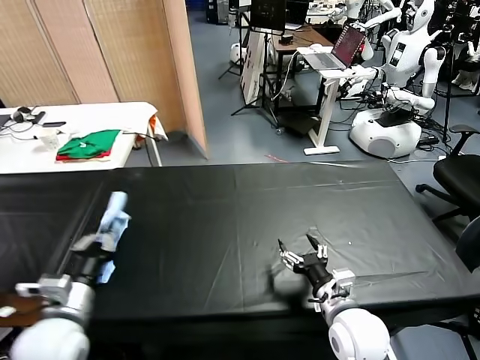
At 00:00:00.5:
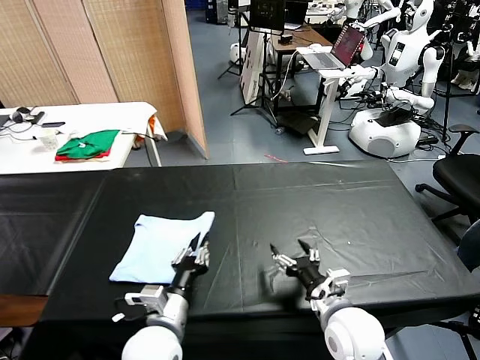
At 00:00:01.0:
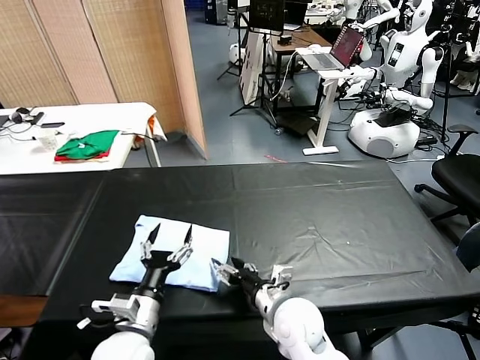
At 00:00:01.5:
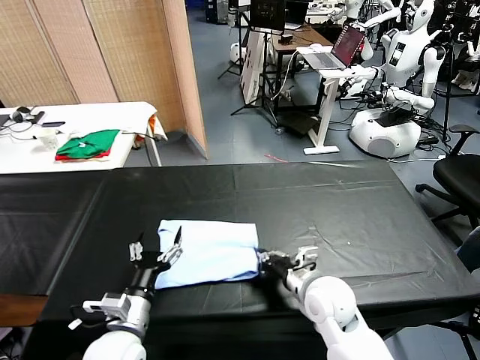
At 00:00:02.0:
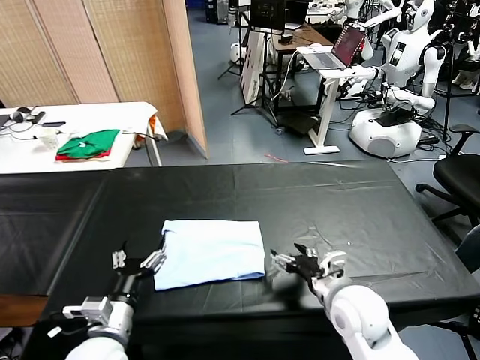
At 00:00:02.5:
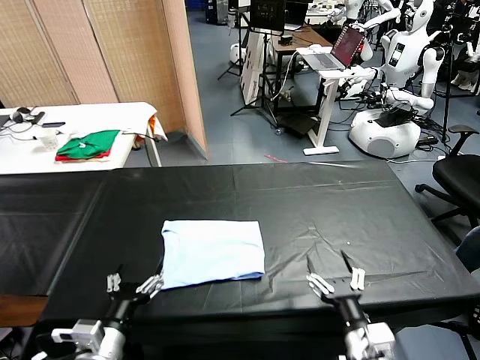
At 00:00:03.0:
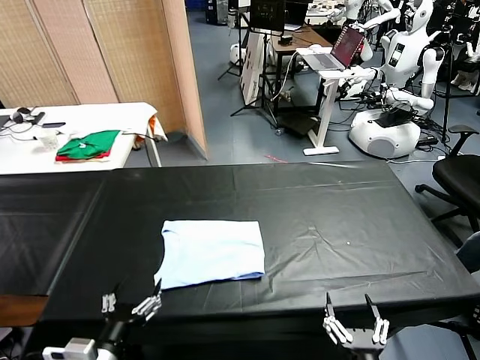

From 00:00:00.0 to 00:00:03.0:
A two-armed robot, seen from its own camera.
Task of the whole recording: fold and organize the clothes.
Step, from 00:00:01.0 to 00:00:01.5: Drag the clothes to the center of the table.
From 00:00:00.0 to 00:00:01.5: The left gripper travels to the left by about 5 cm, and opens its fingers. Meanwhile the right gripper goes about 5 cm forward, and closes up.
From 00:00:01.5 to 00:00:03.0: The left gripper heads backward, covering about 10 cm. The right gripper travels backward by about 25 cm, and opens its fingers.

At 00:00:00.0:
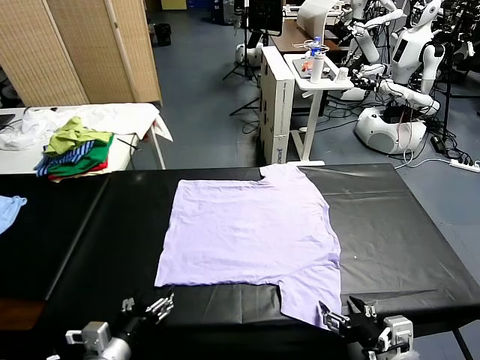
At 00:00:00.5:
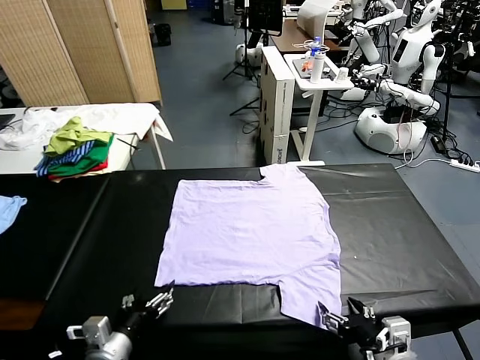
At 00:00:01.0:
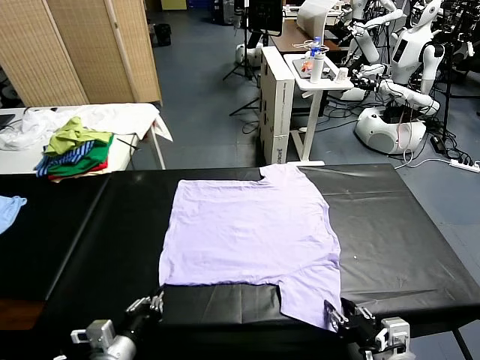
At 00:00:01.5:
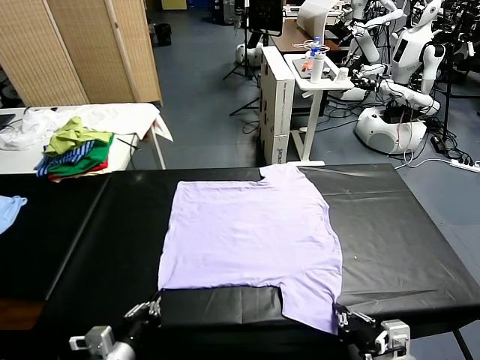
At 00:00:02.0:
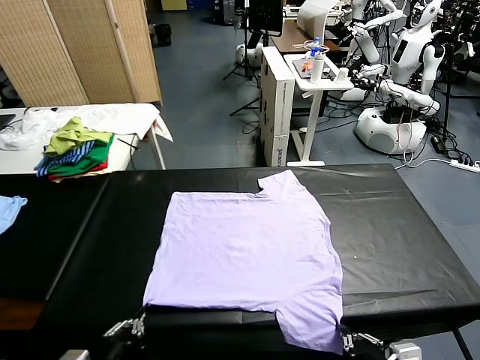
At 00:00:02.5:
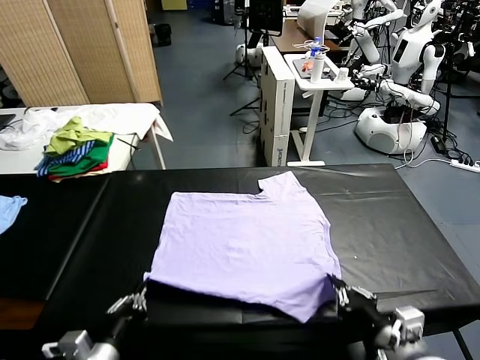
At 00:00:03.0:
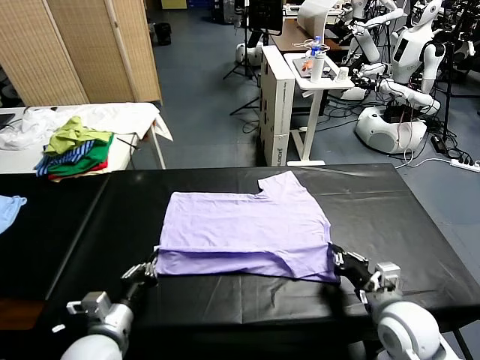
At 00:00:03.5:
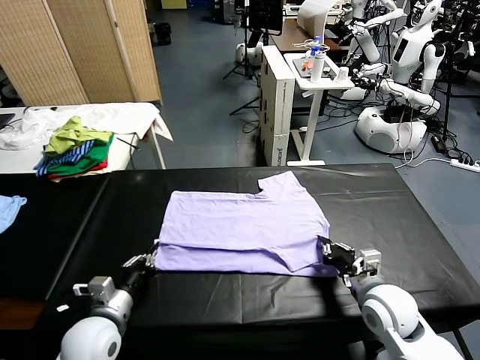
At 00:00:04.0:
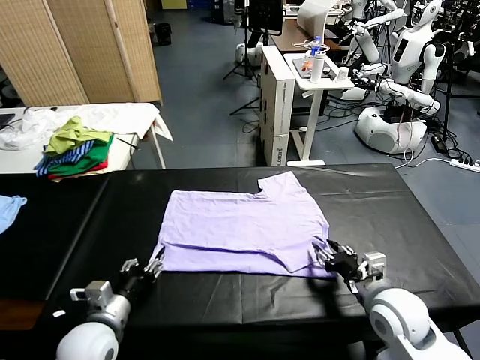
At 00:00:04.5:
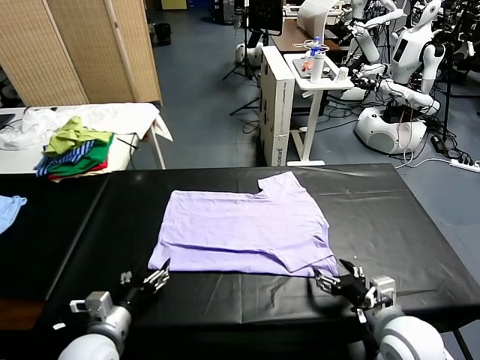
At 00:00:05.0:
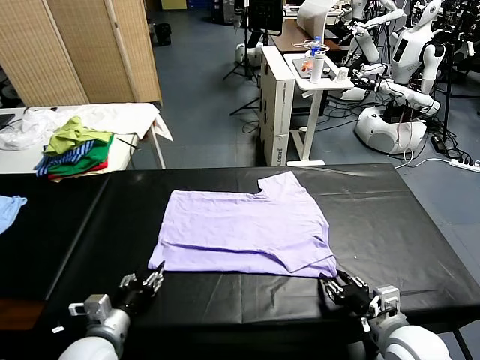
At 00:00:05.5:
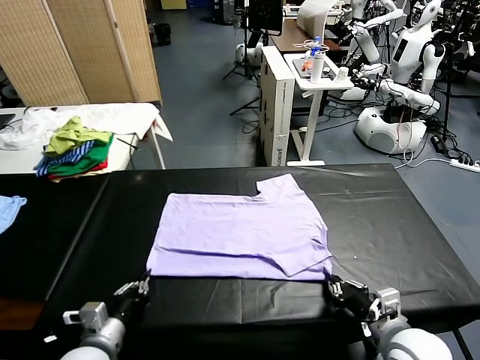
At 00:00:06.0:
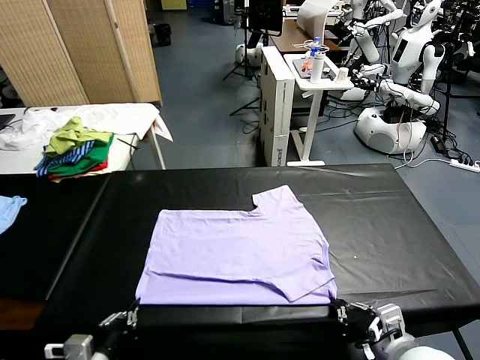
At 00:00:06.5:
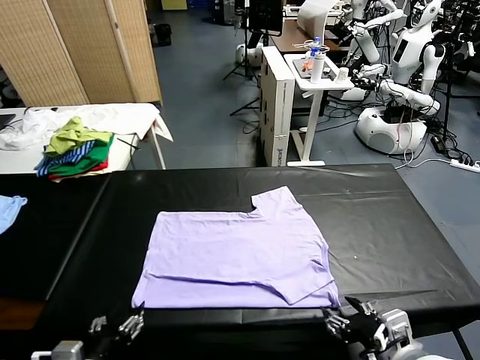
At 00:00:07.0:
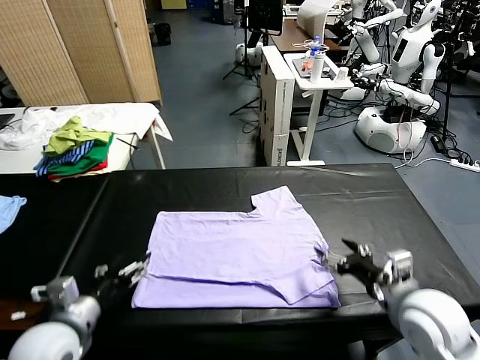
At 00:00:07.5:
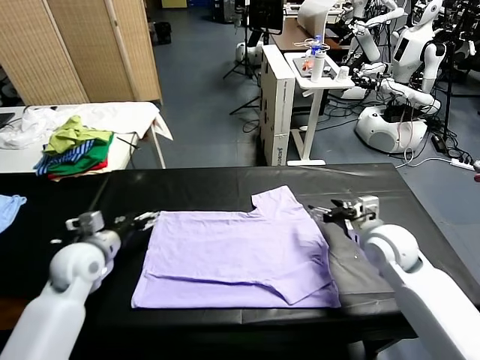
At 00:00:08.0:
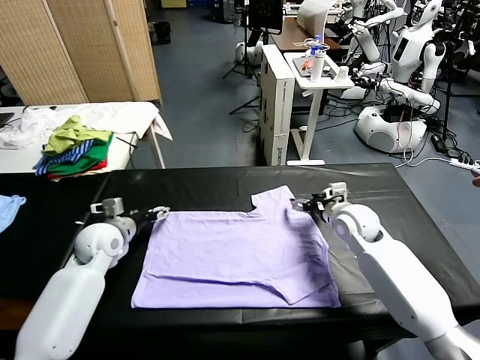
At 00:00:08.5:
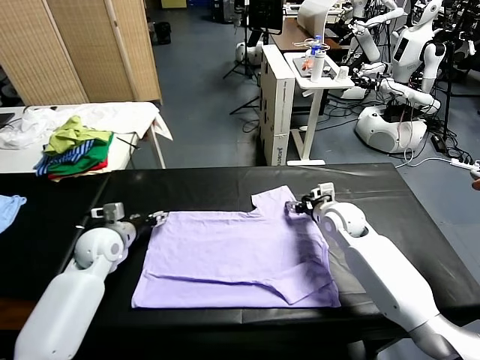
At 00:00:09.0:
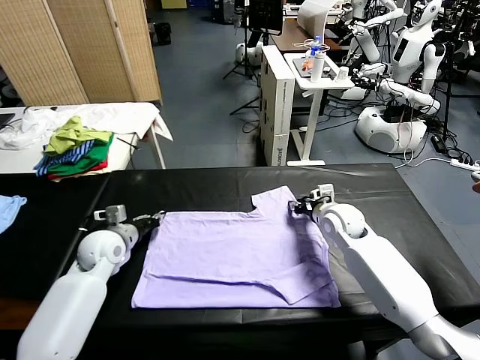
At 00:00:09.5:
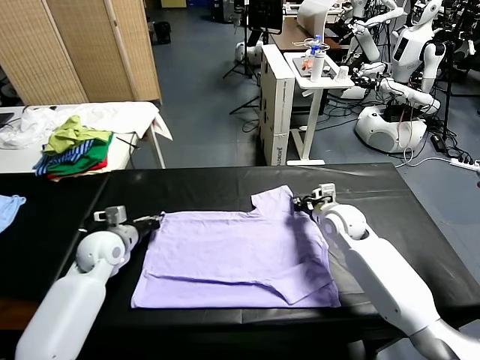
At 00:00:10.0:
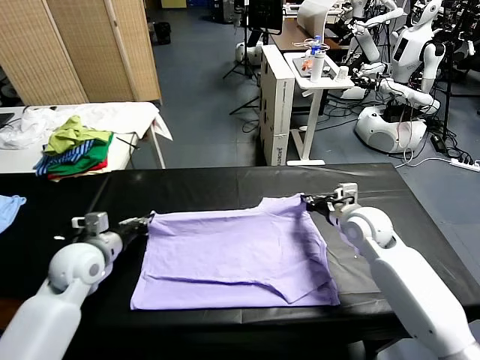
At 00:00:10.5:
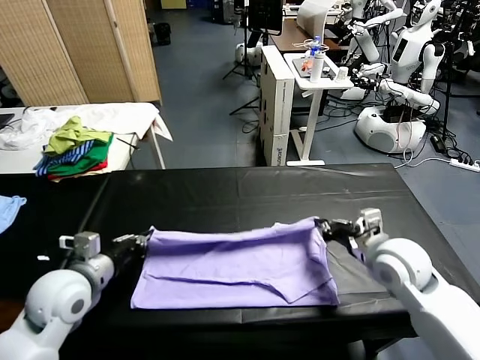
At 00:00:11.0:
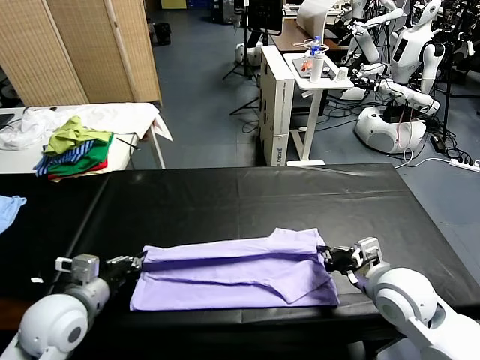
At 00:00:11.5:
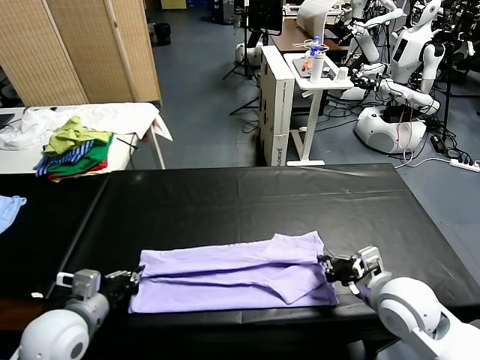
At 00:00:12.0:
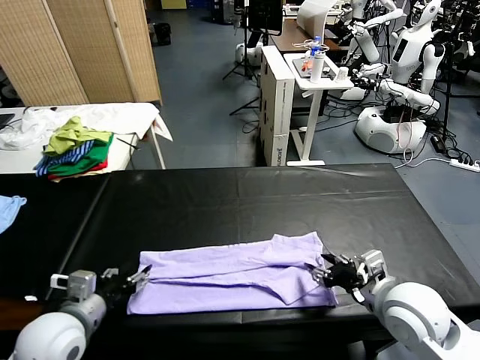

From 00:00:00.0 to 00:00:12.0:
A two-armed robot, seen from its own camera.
Task of the whole recording: fold and organize the clothes.
Step, from 00:00:00.0 to 00:00:01.0: use both grippers simultaneously to clamp the lower edge of the clothing fabric.
Step, from 00:00:01.5 to 00:00:04.0: use both grippers to drag the lower edge of the fabric forward and fold it over the upper edge.
Step, from 00:00:04.5 to 00:00:06.5: Drag the clothes downward with both gripper.
Step, from 00:00:07.0 to 00:00:09.5: use both grippers simultaneously to clamp the upper edge of the clothing fabric.
Step, from 00:00:10.0 to 00:00:12.0: use both grippers to drag the upper edge of the fabric backward and fold it over the lower edge.
From 00:00:02.0 to 00:00:04.0: The two grippers go about 10 cm forward. The right gripper opens. The left gripper opens its fingers.
From 00:00:04.0 to 00:00:06.0: The two grippers go some 10 cm backward. The right gripper closes its fingers, while the left gripper closes up.
From 00:00:06.0 to 00:00:08.0: The two grippers go about 30 cm forward. The left gripper opens up; the right gripper opens its fingers.
From 00:00:08.0 to 00:00:10.0: Both grippers travel together backward, approximately 10 cm. The right gripper closes its fingers; the left gripper closes its fingers.
From 00:00:10.0 to 00:00:12.0: Both grippers move backward, approximately 15 cm. The right gripper opens; the left gripper opens its fingers.

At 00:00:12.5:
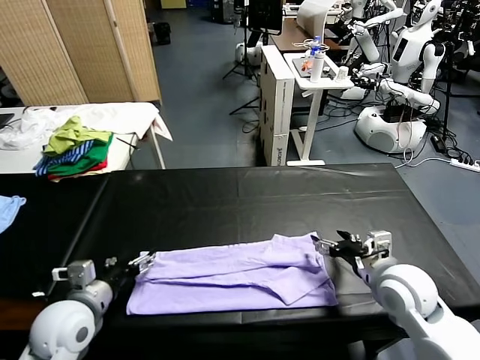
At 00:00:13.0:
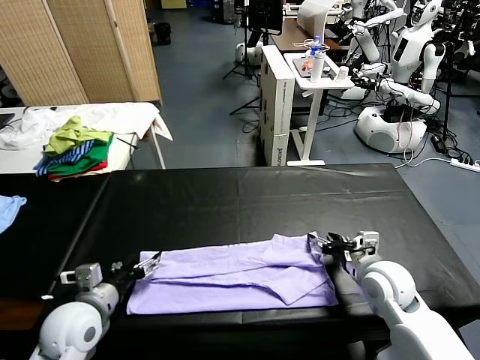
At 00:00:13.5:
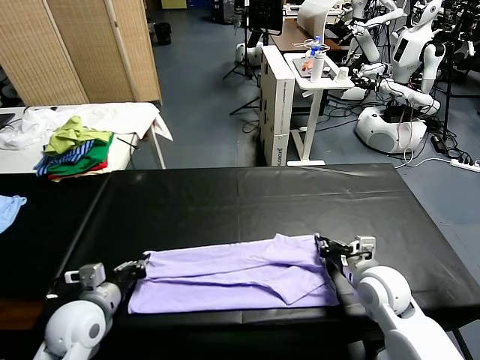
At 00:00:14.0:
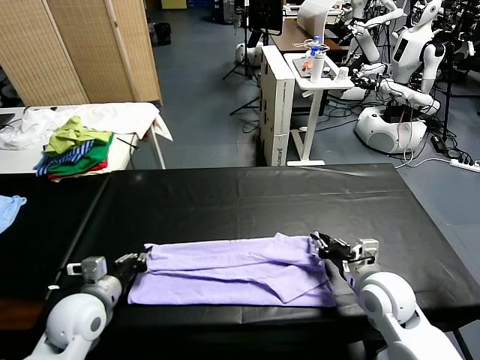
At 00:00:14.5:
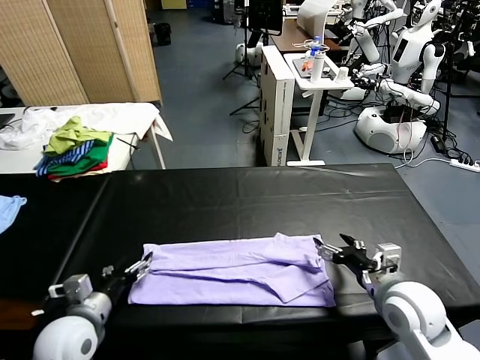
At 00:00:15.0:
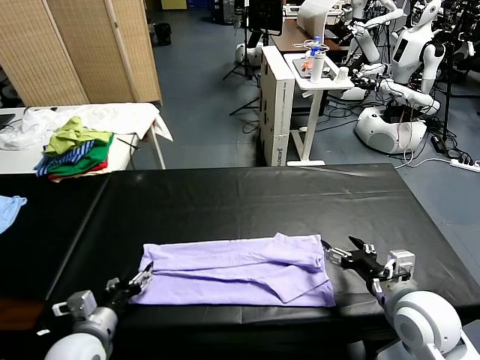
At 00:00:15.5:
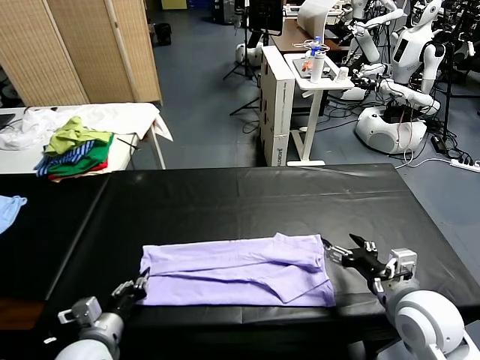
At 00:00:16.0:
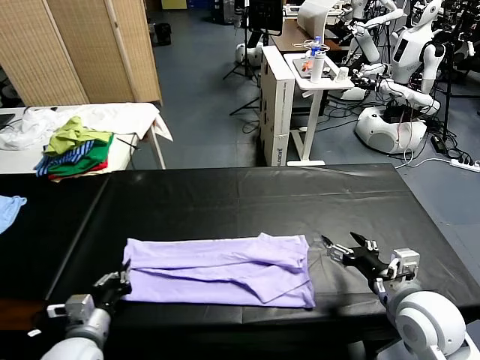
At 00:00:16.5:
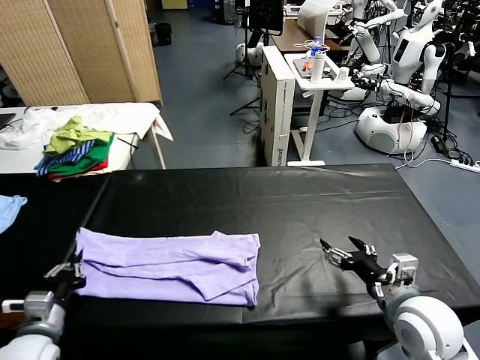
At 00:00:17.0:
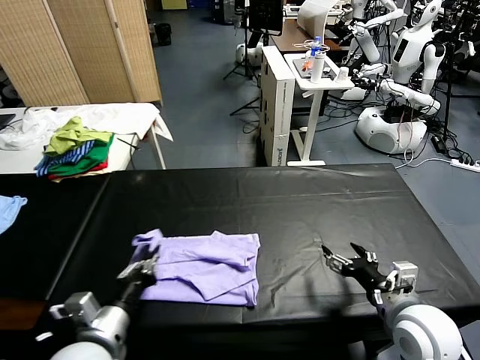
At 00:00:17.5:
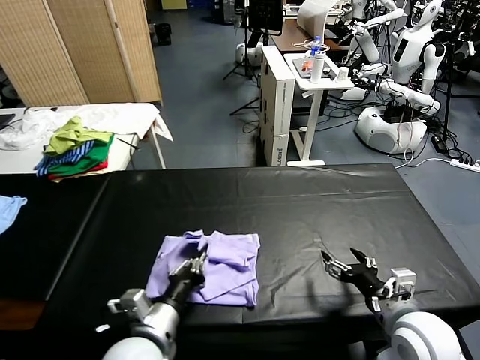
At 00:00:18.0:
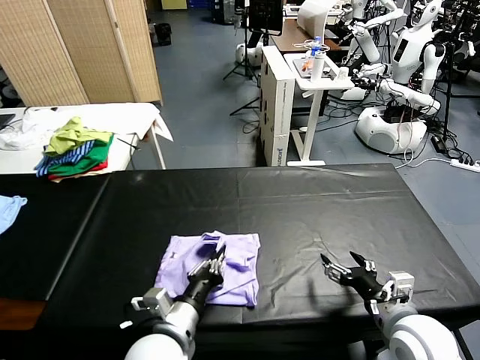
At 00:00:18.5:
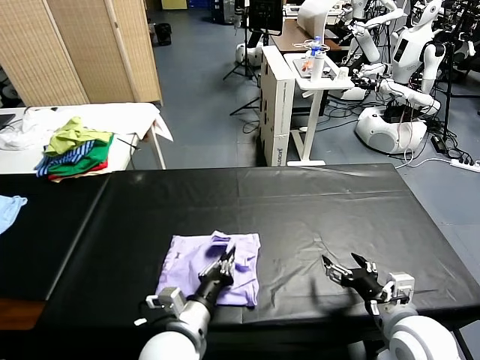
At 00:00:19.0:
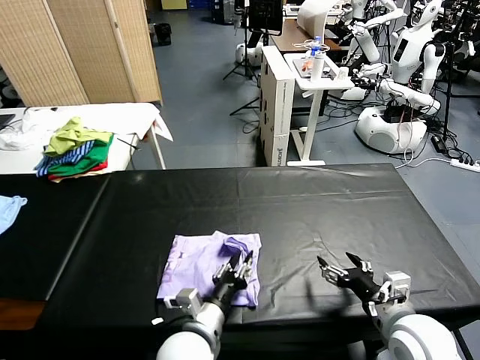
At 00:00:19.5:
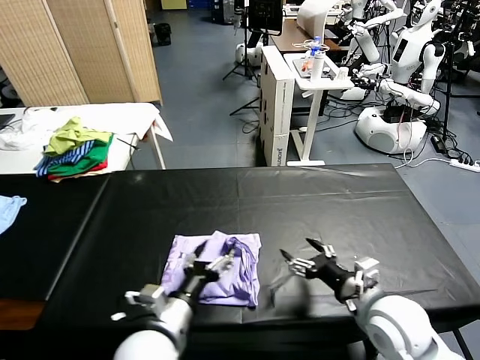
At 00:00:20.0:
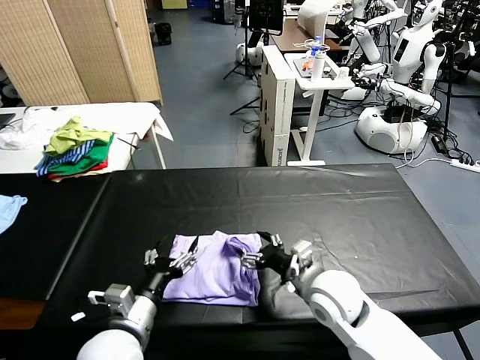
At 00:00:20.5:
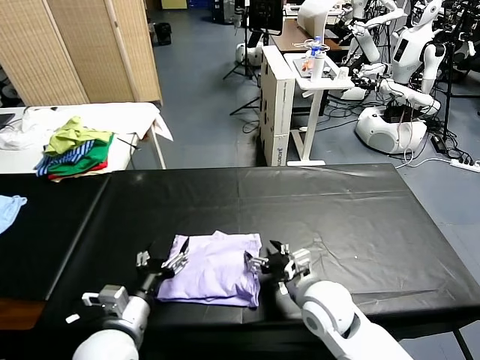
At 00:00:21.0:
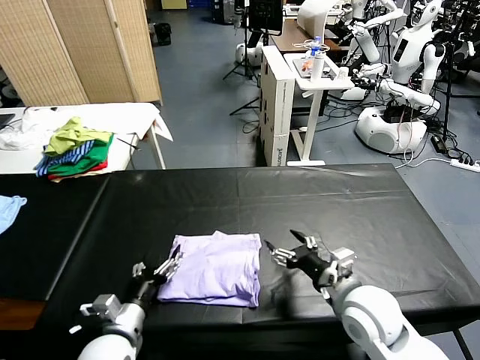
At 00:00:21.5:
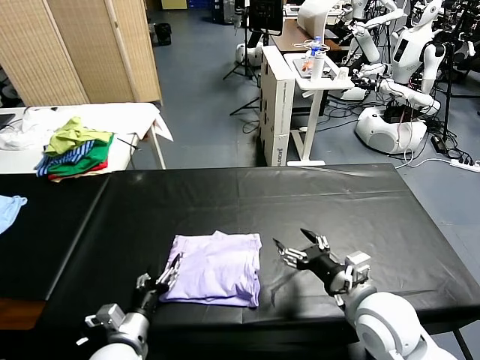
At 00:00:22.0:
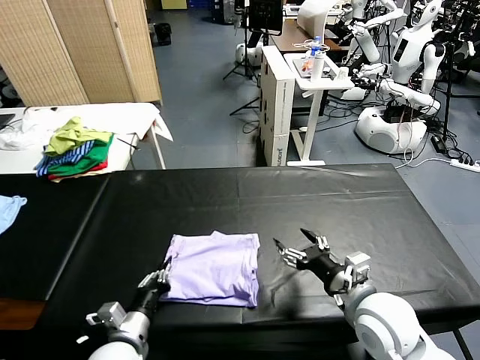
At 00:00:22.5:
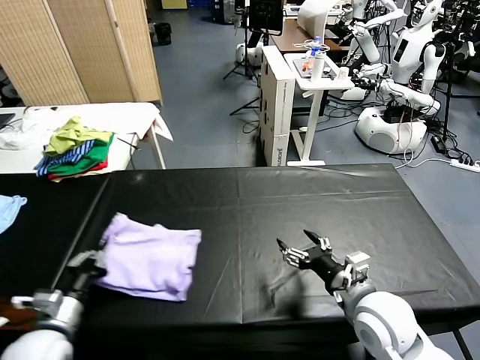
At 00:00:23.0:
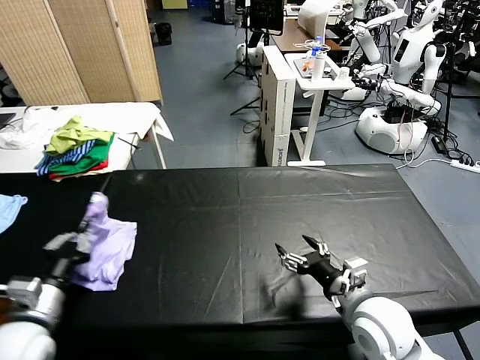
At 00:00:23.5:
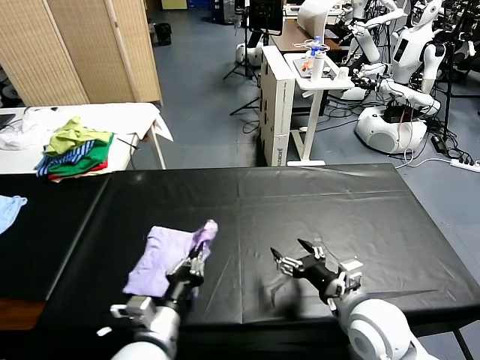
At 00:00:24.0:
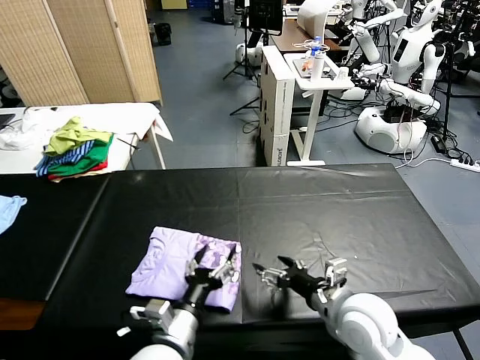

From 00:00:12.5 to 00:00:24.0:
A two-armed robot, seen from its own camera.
Task of the whole recording: fold and organize the clothes.
Step, from 00:00:12.5 to 00:00:15.5: use the left gripper to clamp the left edge of the fabric.
Step, from 00:00:16.0 to 00:00:19.0: use the left gripper to drag the left edge of the fabric to the left and folds it over the right edge.
Step, from 00:00:19.5 to 00:00:23.5: Flip the folded clothes over with left gripper.
From 00:00:12.5 to 00:00:14.5: The right gripper heads backward, covering about 5 cm, and closes, then reopens. Meanwhile the left gripper closes, then opens again.
From 00:00:14.5 to 00:00:16.5: The left gripper heads to the left, covering roughly 5 cm, and closes its fingers.
From 00:00:16.5 to 00:00:18.5: The left gripper travels to the right by about 25 cm.
From 00:00:18.5 to 00:00:20.0: The right gripper goes some 15 cm to the left and forward; the left gripper is displaced to the left by roughly 10 cm, and opens up.
From 00:00:20.0 to 00:00:22.0: The left gripper is displaced downward by roughly 10 cm, and closes, while the right gripper is displaced to the right and backward by approximately 10 cm.
From 00:00:22.0 to 00:00:24.0: The left gripper shifts roughly 15 cm to the right and upward, and opens up.
